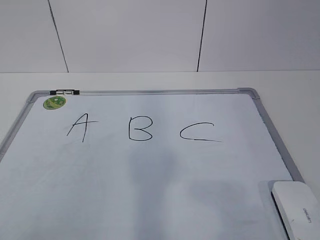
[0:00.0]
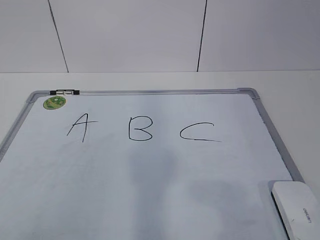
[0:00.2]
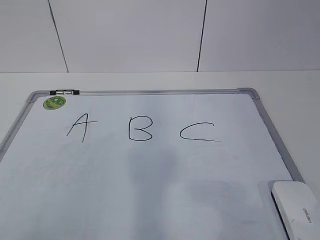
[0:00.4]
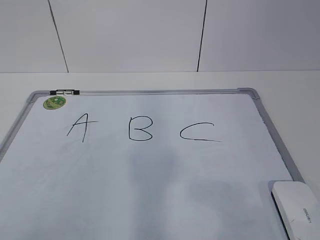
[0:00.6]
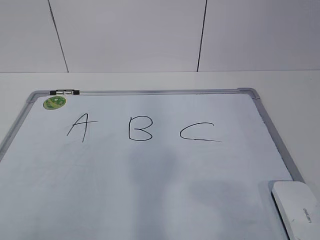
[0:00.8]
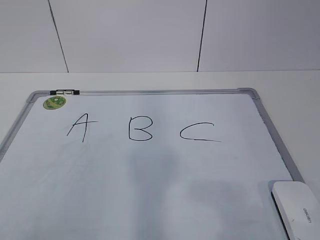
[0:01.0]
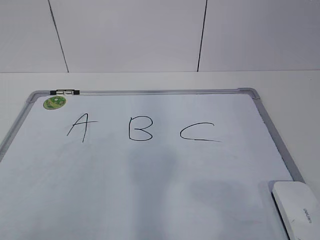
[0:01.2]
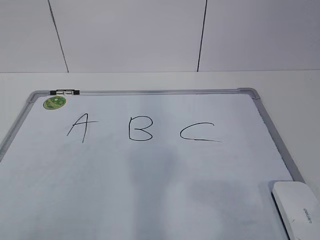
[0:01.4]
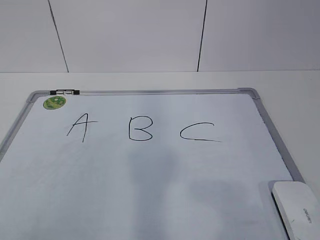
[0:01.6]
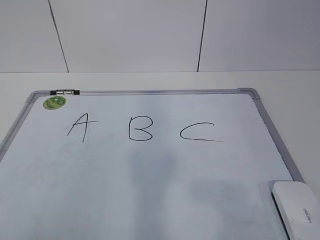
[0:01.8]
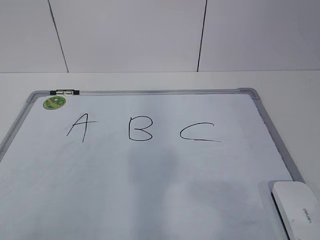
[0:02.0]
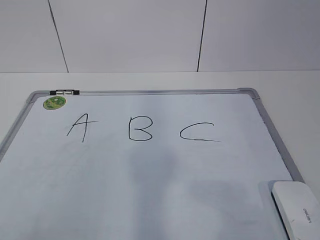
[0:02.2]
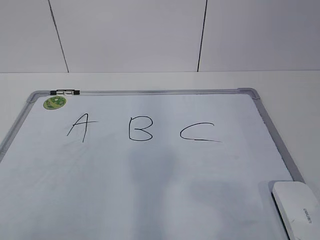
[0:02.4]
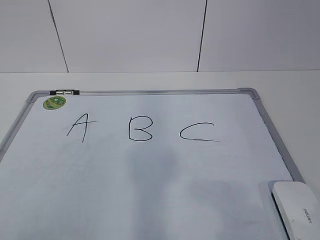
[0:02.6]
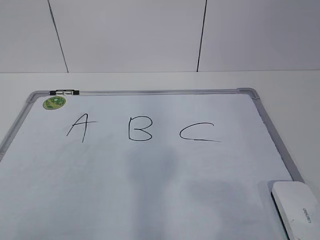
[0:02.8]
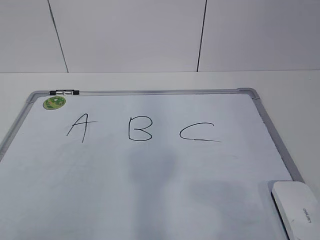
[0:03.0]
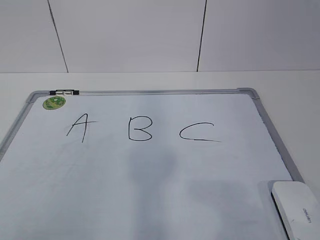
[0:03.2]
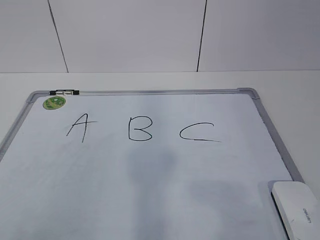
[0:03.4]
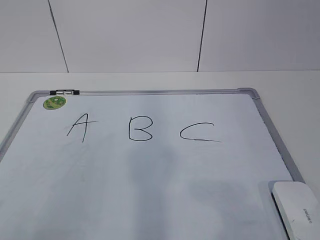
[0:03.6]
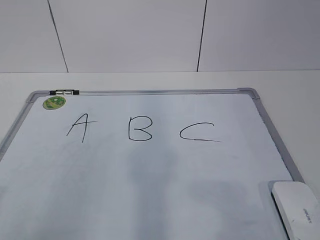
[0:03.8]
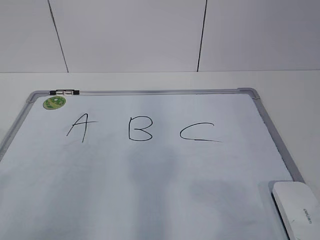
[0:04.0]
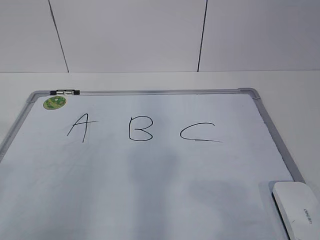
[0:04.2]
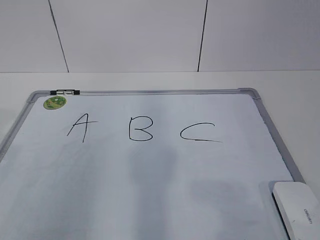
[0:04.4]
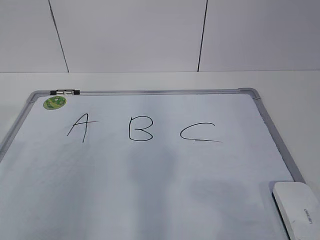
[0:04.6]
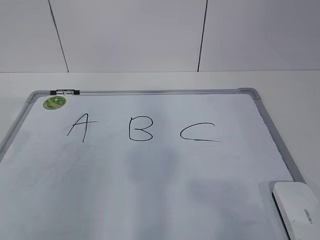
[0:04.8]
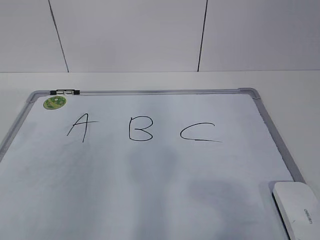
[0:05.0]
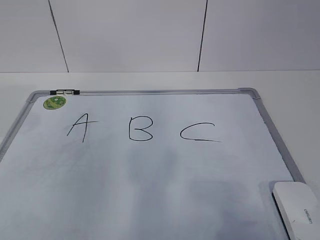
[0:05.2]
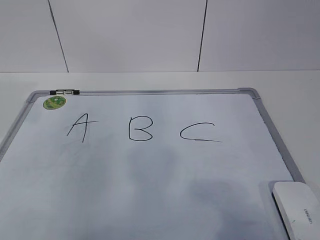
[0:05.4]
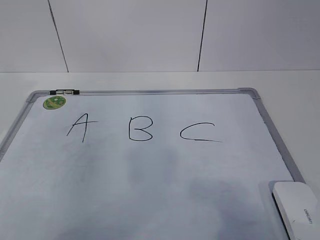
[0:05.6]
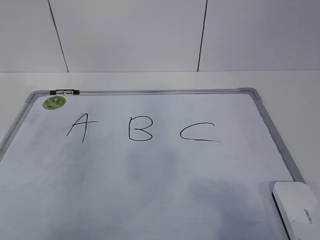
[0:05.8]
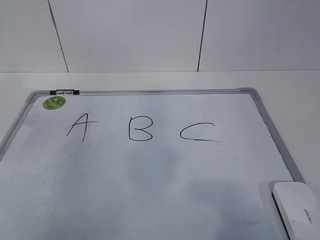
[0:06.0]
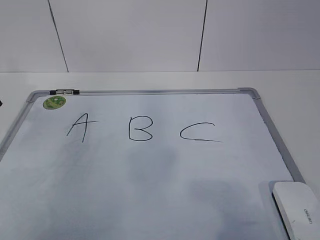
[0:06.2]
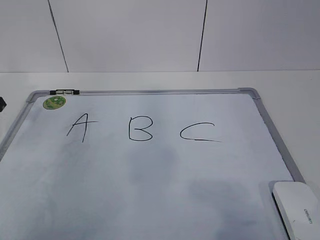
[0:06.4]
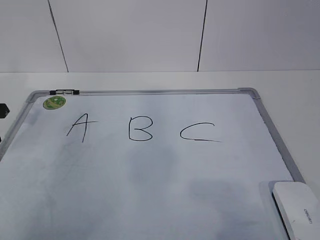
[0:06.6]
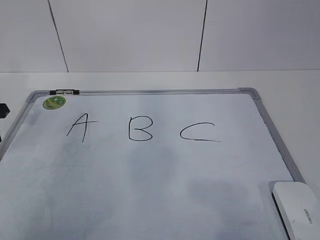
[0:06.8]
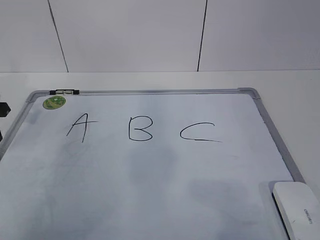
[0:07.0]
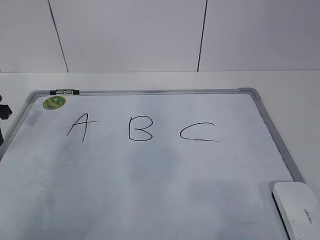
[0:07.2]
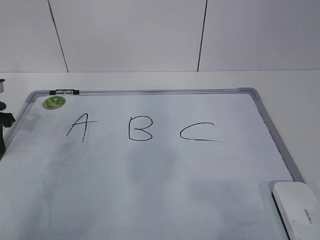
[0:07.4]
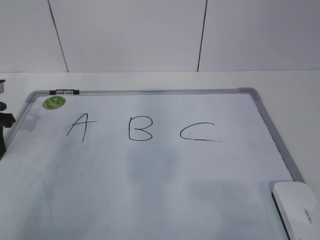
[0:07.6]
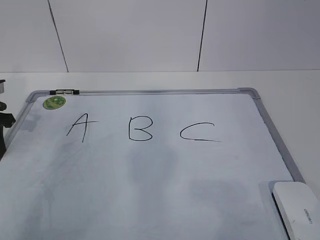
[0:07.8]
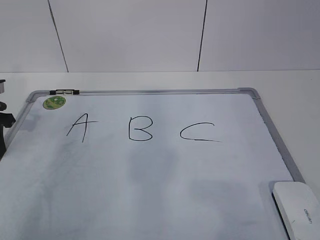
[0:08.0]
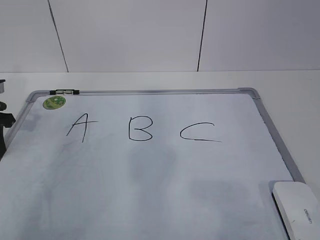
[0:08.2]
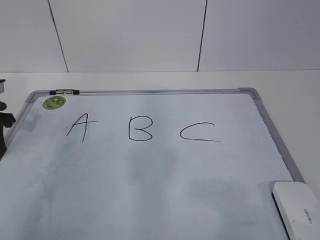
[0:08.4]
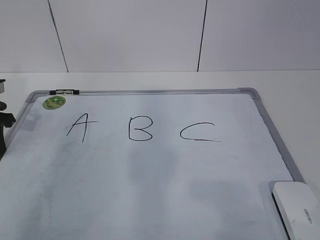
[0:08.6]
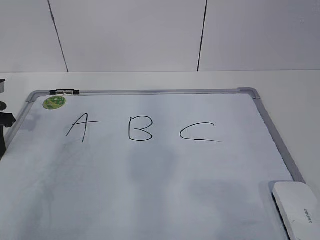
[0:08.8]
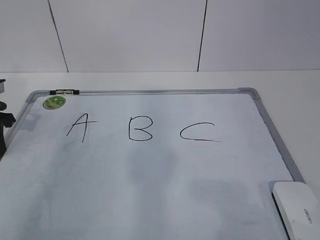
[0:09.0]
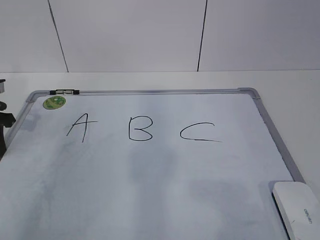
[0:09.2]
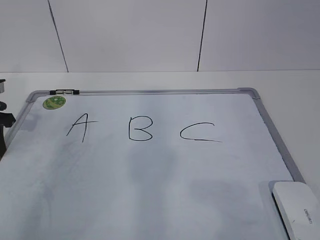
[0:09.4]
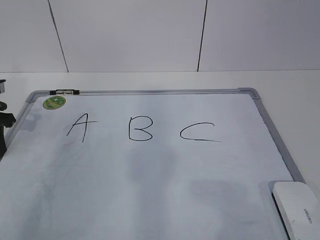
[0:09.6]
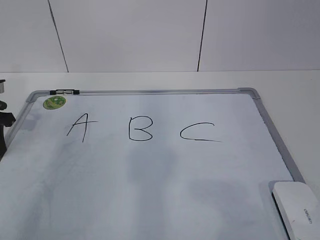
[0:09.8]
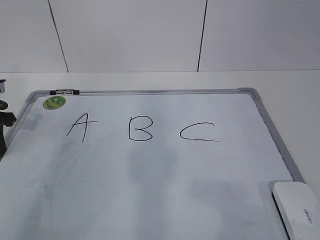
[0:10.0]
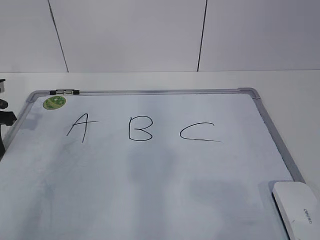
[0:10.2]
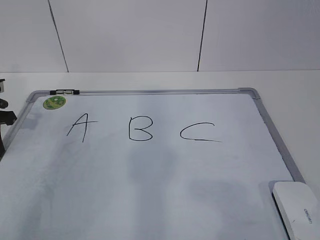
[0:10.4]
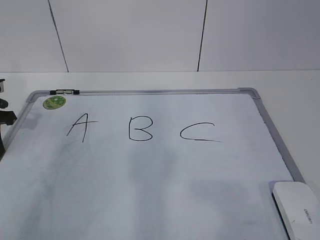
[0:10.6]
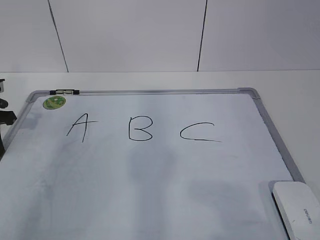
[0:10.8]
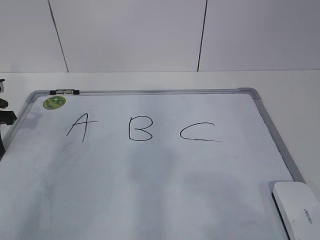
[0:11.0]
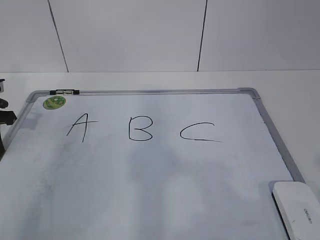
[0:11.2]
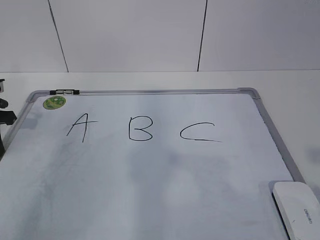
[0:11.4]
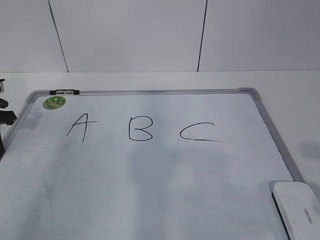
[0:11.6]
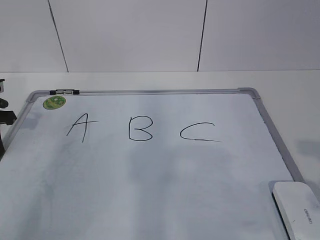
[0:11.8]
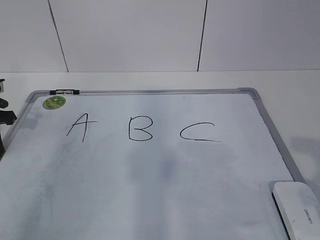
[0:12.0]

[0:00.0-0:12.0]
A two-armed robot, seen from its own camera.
Task of the whole recording: pick up the eraser on the blackboard and erase the letter "B".
0:01.6 to 0:03.0: Both grippers stay put.
0:04.4 to 0:06.0: The left gripper moves forward and downward, some 20 cm.
0:06.0 to 0:07.6: The left gripper travels downward by some 5 cm.
0:07.6 to 0:09.0: The two grippers keep their place.

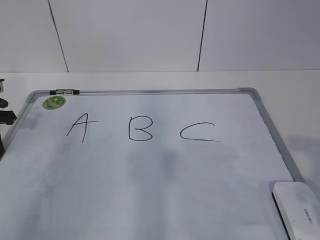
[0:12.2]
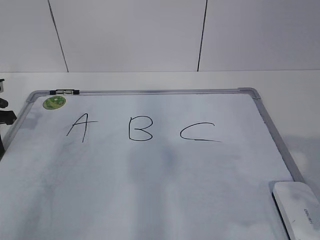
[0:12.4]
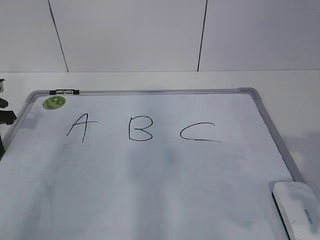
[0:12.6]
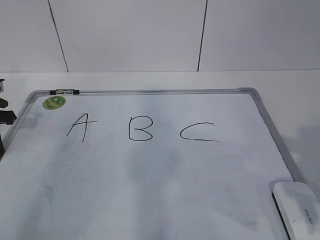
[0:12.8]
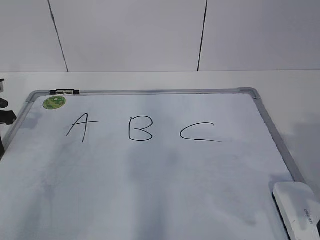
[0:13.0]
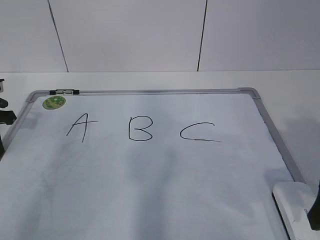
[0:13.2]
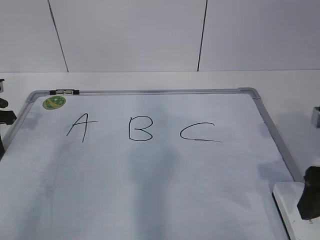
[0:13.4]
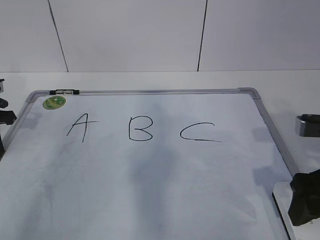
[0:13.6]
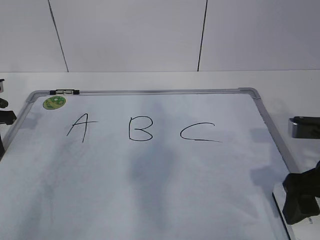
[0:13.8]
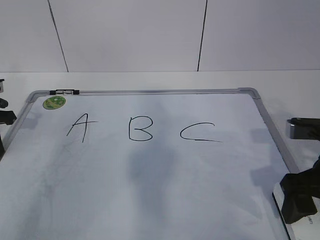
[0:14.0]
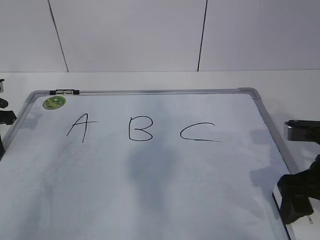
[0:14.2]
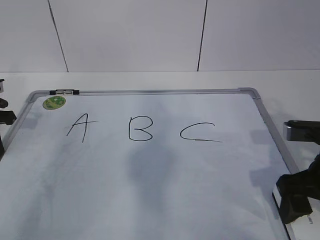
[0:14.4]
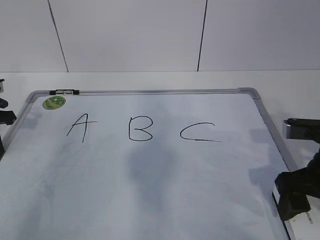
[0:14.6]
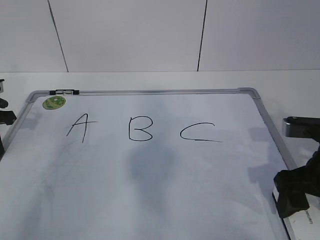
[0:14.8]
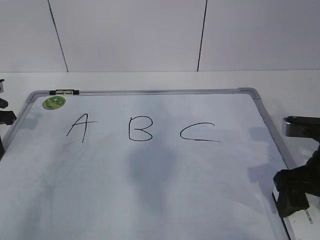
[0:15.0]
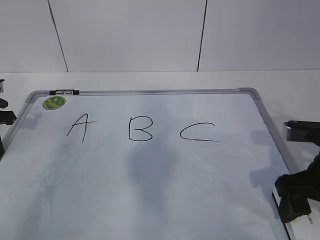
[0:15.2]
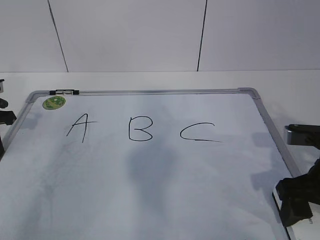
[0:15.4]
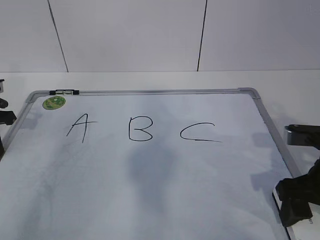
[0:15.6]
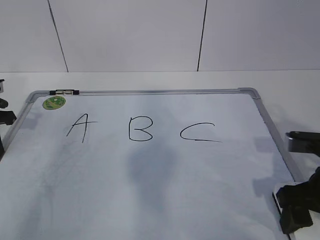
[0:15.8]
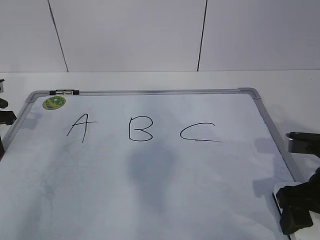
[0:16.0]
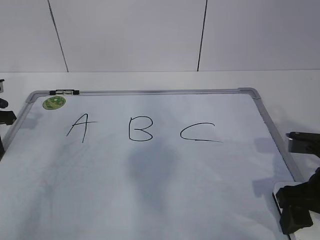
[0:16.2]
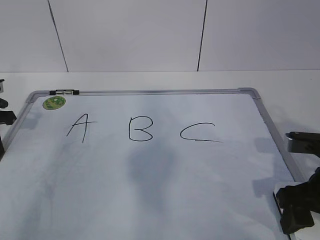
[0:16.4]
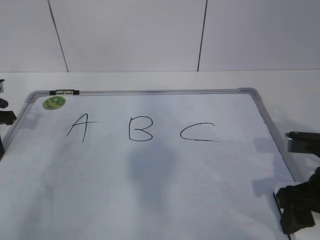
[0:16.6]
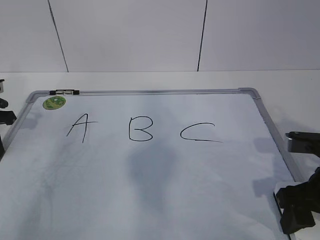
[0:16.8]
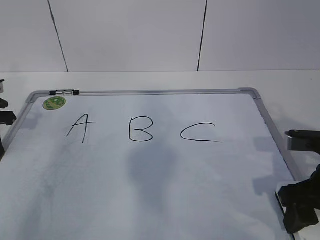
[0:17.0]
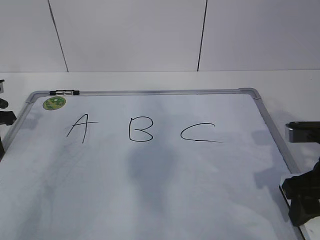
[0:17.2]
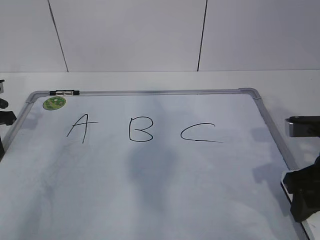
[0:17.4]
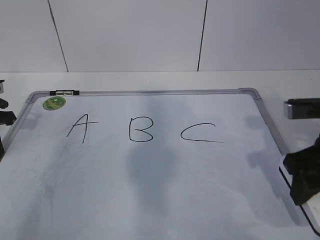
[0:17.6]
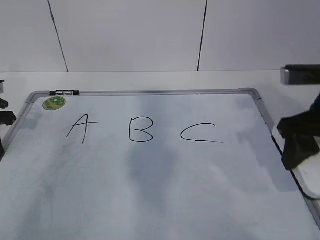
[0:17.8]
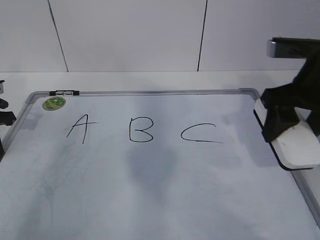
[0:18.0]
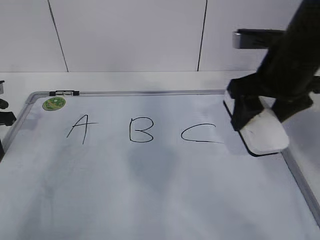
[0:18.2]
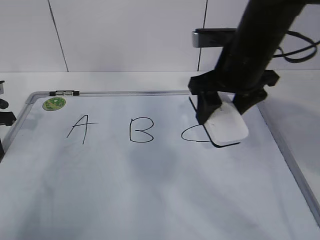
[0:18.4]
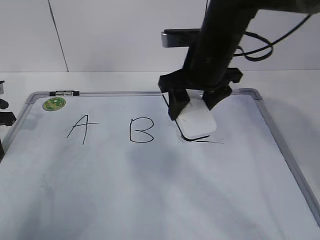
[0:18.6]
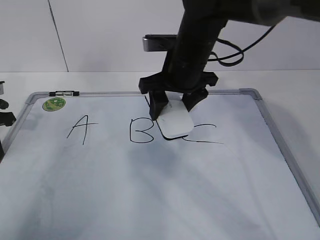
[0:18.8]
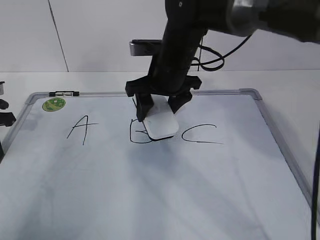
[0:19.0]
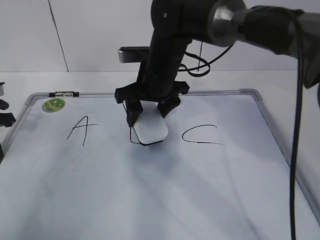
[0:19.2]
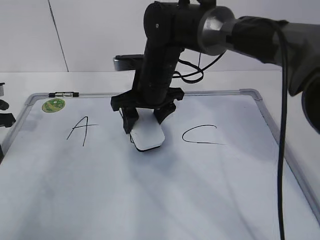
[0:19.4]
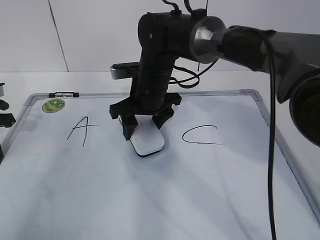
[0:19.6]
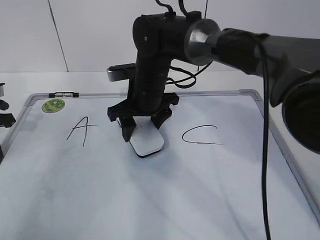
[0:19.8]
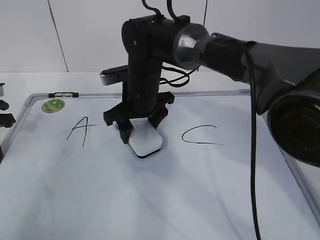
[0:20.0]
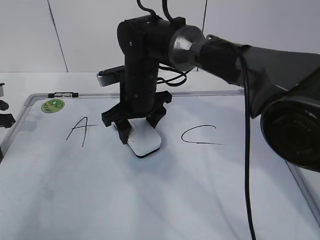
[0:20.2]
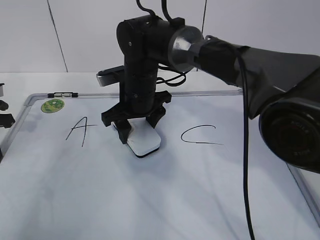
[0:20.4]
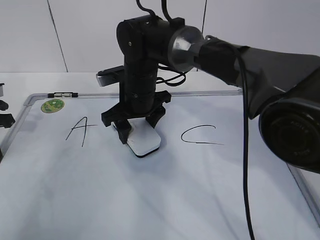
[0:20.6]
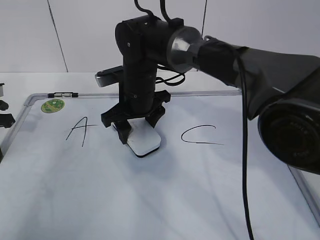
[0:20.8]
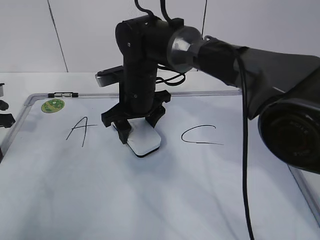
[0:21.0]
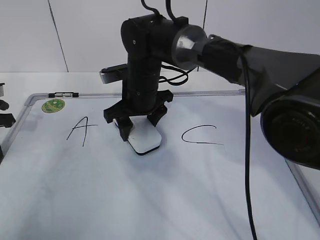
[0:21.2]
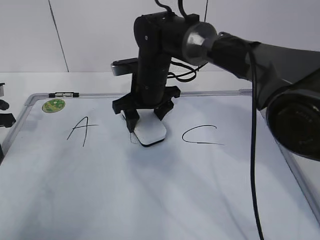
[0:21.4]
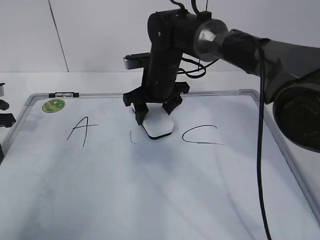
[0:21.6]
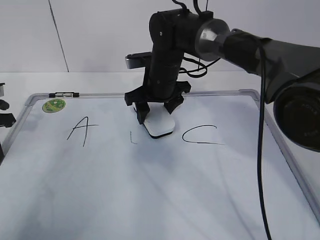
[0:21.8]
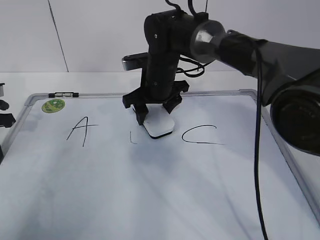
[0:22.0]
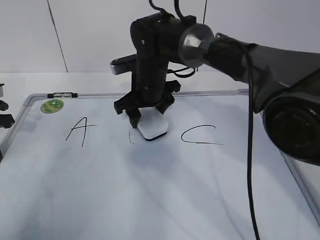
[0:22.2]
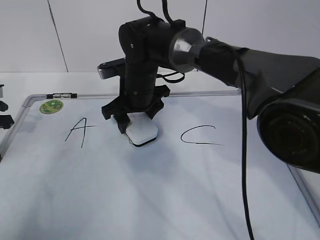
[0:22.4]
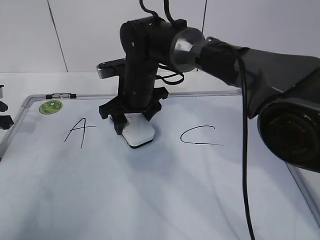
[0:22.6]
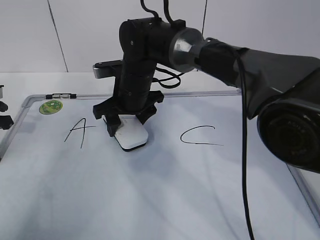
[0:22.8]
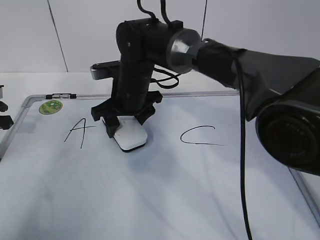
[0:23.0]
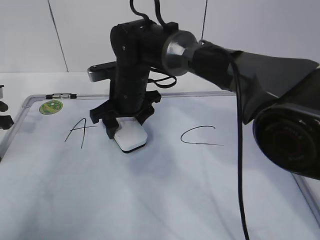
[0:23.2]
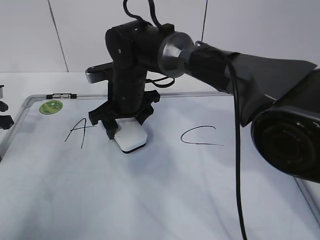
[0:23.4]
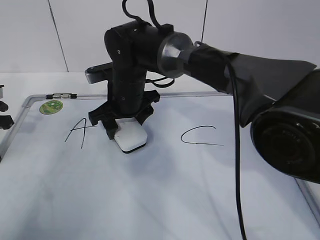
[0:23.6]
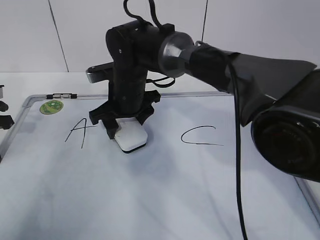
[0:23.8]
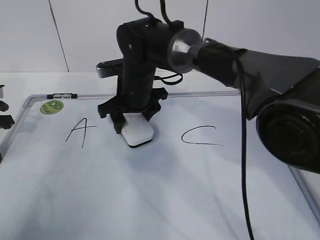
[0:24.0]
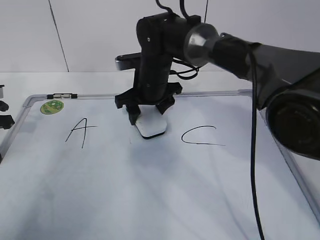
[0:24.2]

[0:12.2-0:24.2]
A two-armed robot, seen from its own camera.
Task of the whole recording: pick up the eraser on the blackboard and erase the letter "B".
0:12.2 to 0:13.8: The right gripper is displaced forward and downward by about 15 cm.
0:13.8 to 0:16.6: There are only small adjustments of the grippers.
0:16.6 to 0:18.2: The right gripper travels upward and forward by some 15 cm.
0:18.2 to 0:19.8: The right gripper travels to the left, downward and forward by about 25 cm.
0:19.8 to 0:24.2: The grippers make only small movements.
